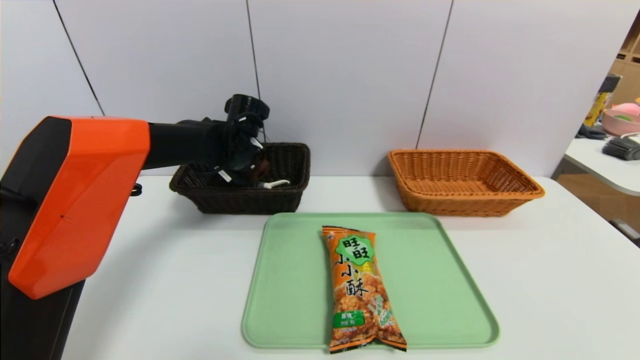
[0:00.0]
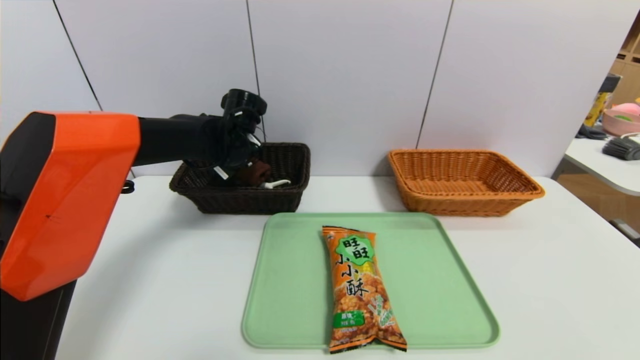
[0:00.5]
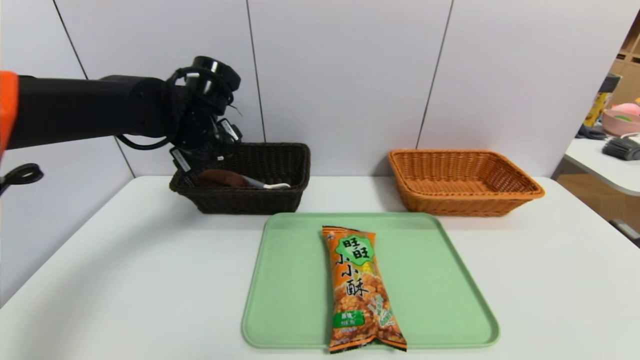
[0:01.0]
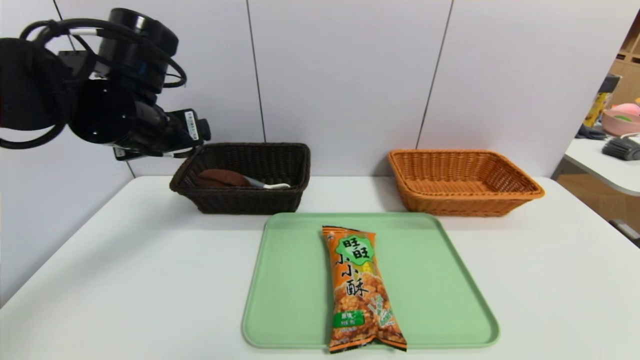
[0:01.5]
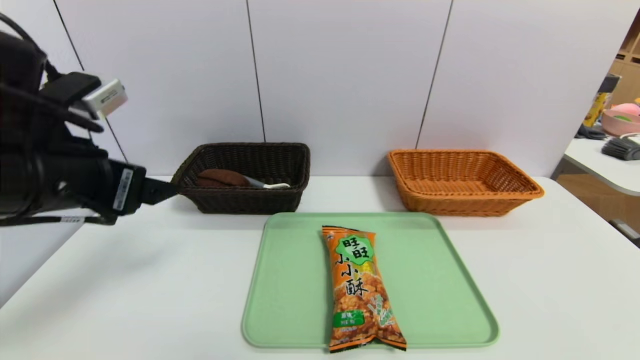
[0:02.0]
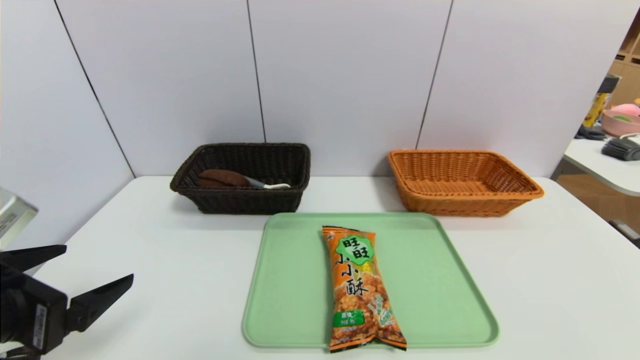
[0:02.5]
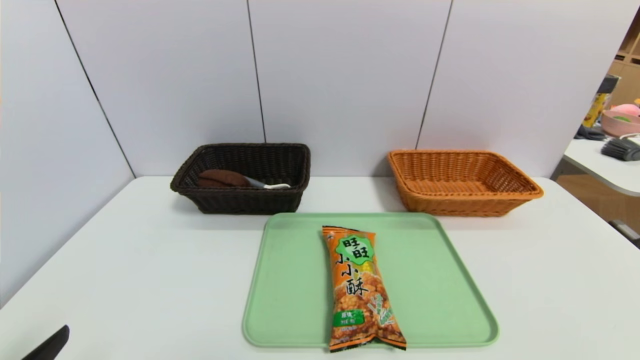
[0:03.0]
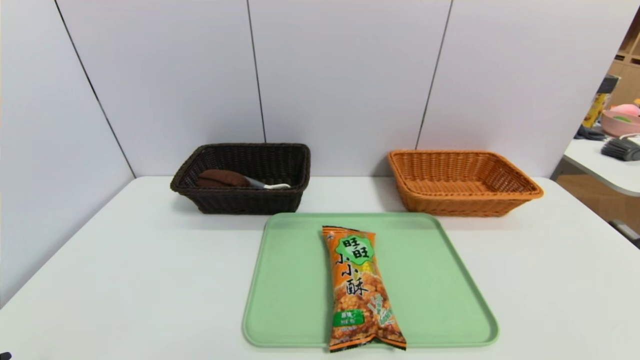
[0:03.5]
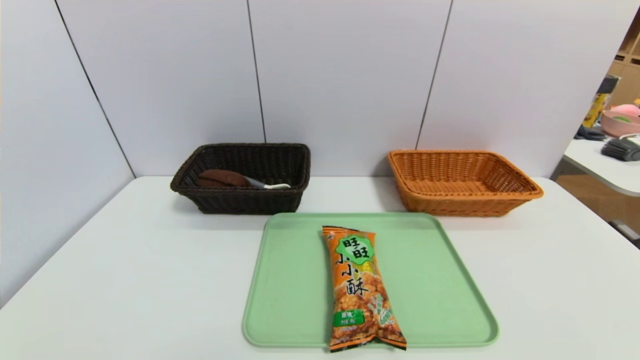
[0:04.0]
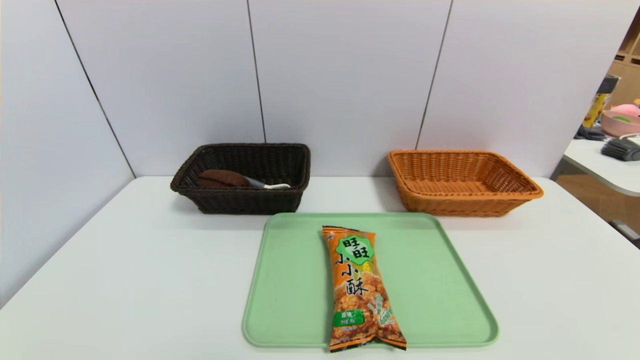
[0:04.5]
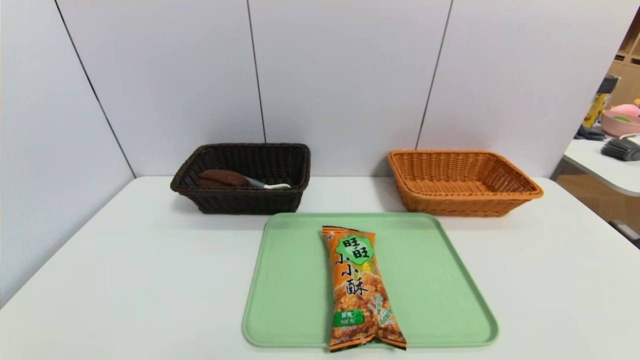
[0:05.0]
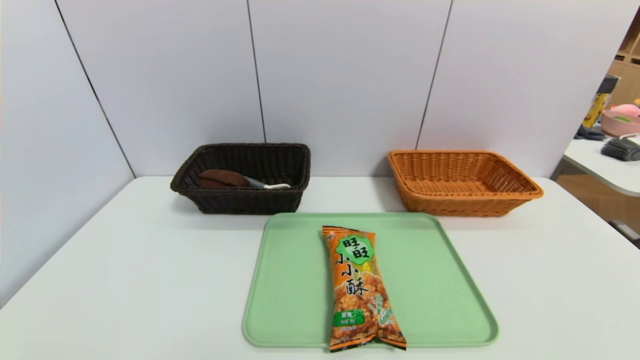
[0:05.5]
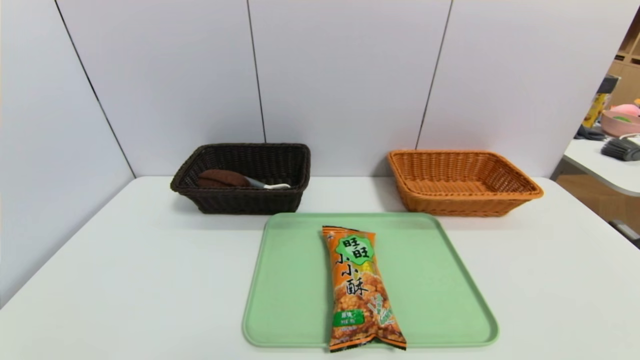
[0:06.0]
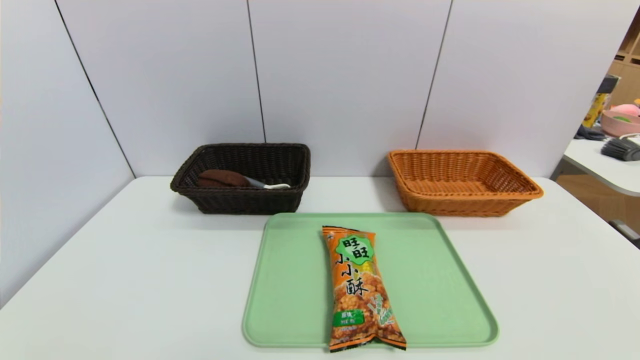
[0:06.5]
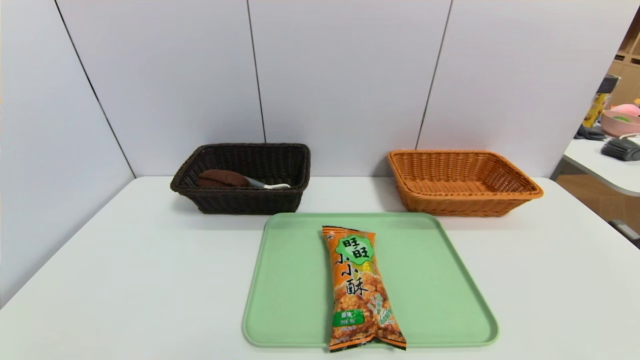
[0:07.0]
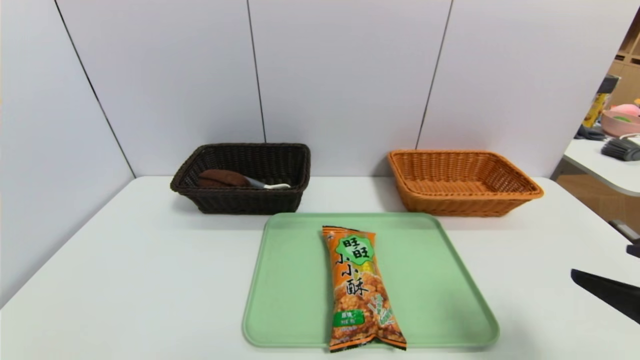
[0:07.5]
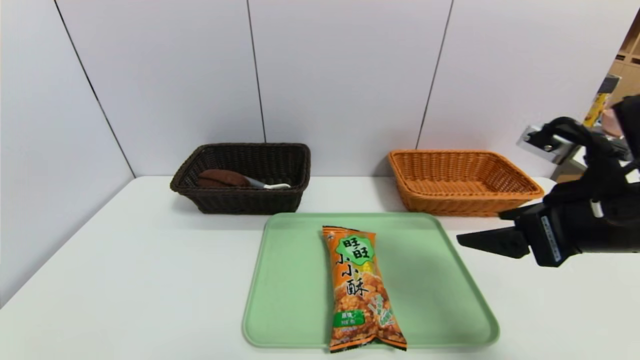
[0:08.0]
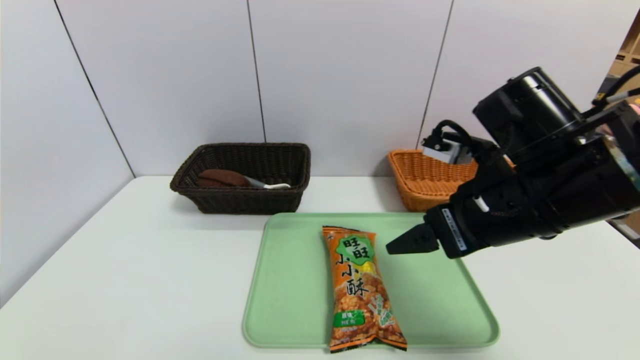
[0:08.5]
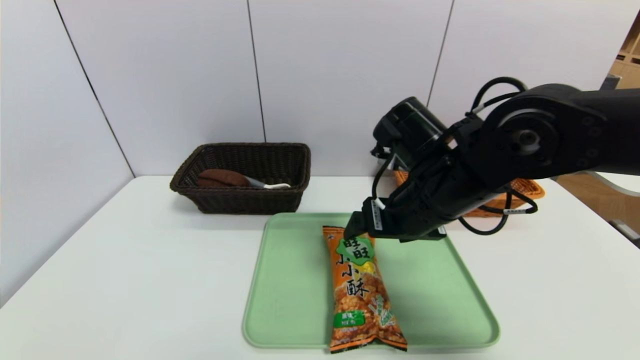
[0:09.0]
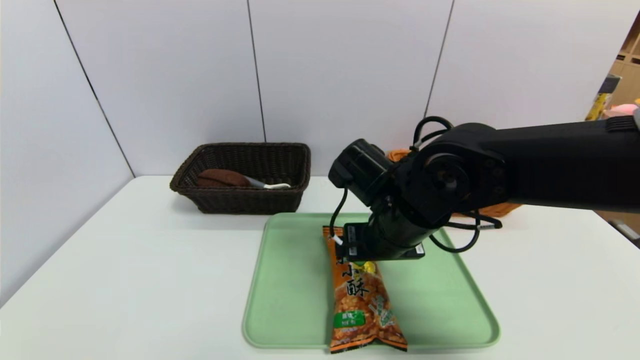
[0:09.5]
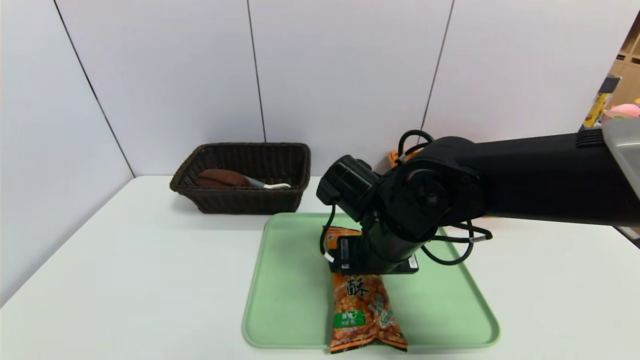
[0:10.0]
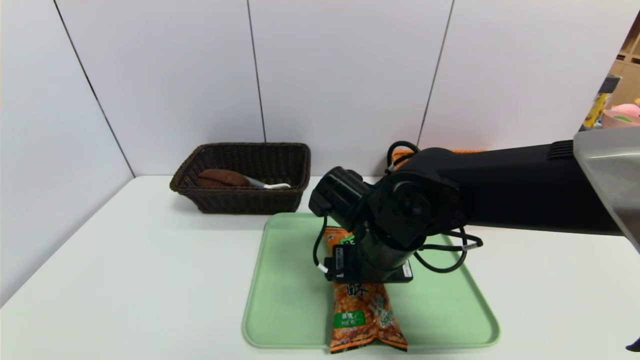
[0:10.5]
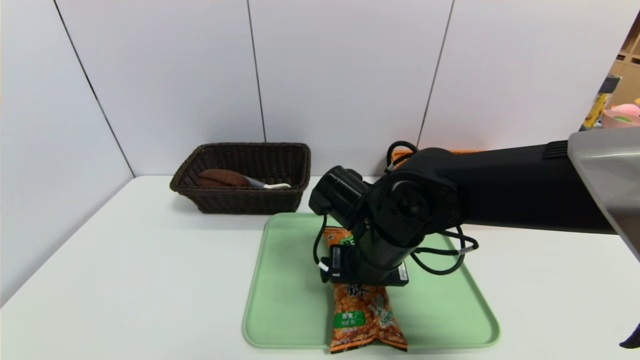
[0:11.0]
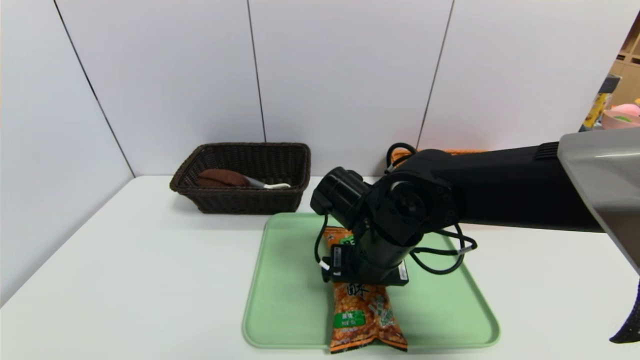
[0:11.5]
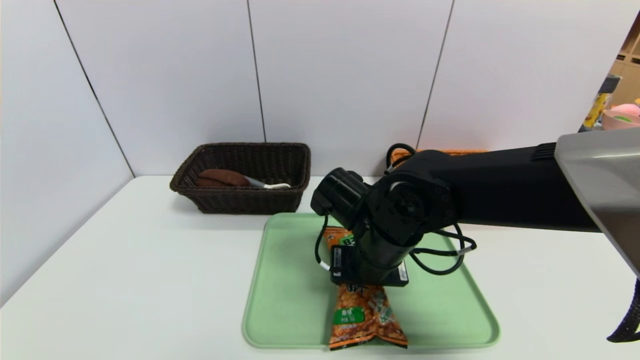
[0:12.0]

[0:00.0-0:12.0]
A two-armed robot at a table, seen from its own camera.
Task of the whole recording: place the food in the right basket with the right gripper, and place the non food items in the left basket with the left gripper.
0:00.0 to 0:02.0: The left gripper moves backward, some 25 cm, and opens.
0:02.0 to 0:04.0: The left gripper heads downward and backward, covering approximately 30 cm.
0:06.0 to 0:08.0: The right gripper travels forward and upward by some 30 cm.
0:08.0 to 0:10.0: The right gripper travels to the left and downward by some 20 cm.
0:10.0 to 0:12.0: The right gripper closes up.

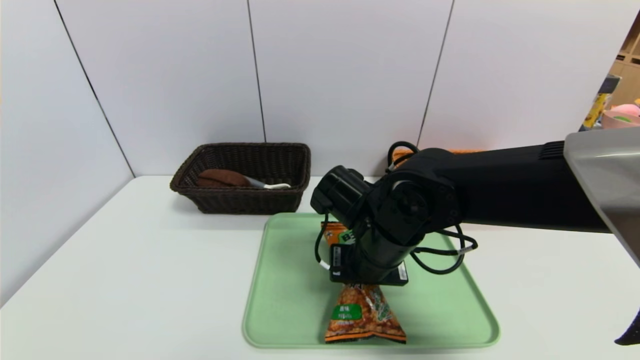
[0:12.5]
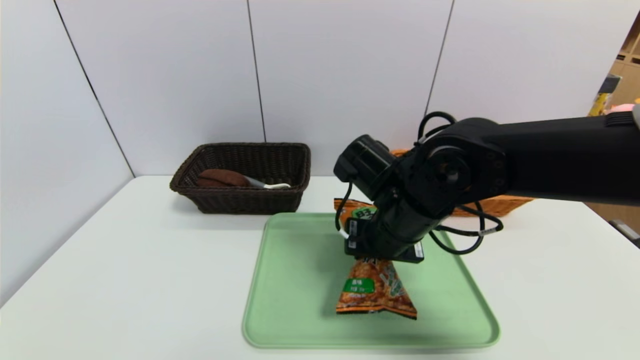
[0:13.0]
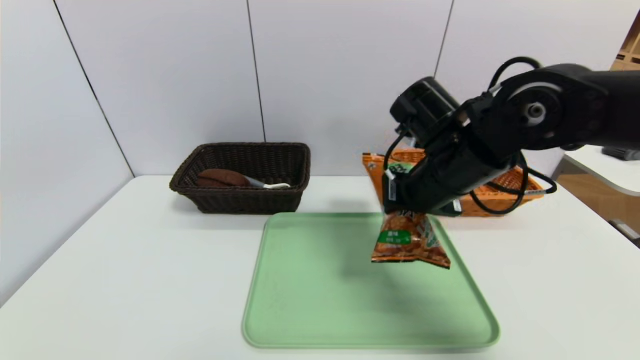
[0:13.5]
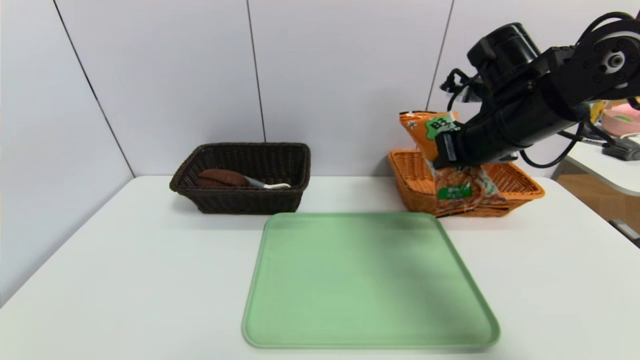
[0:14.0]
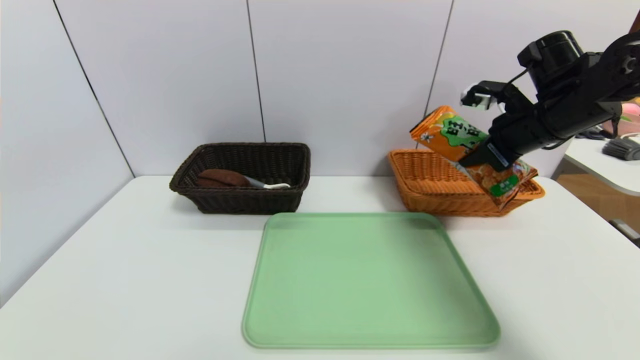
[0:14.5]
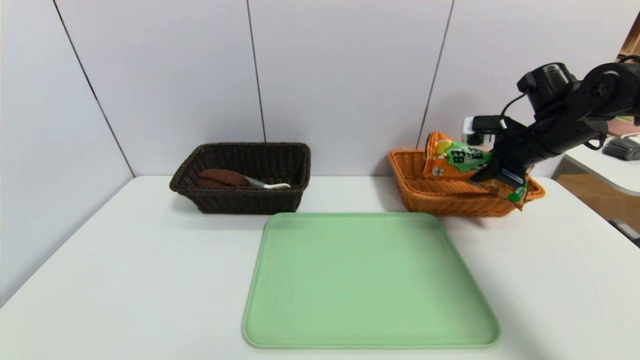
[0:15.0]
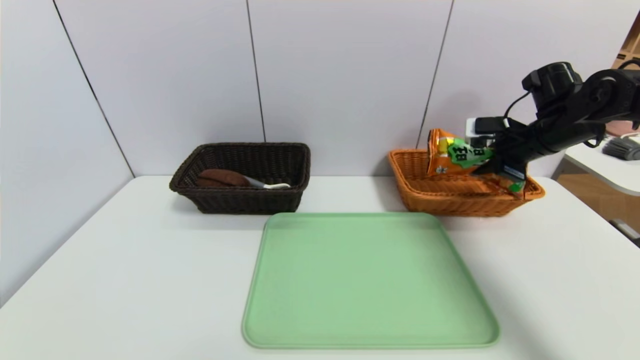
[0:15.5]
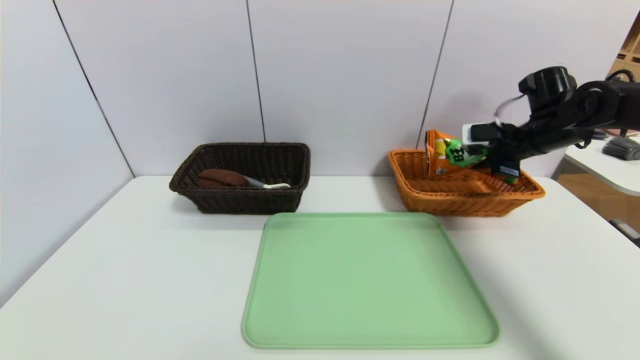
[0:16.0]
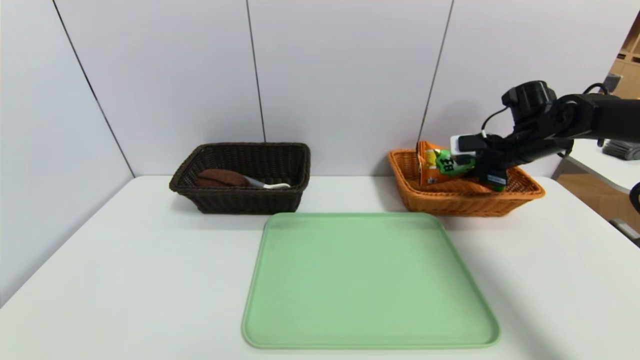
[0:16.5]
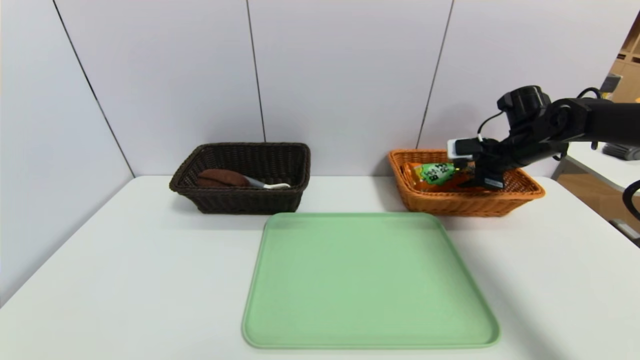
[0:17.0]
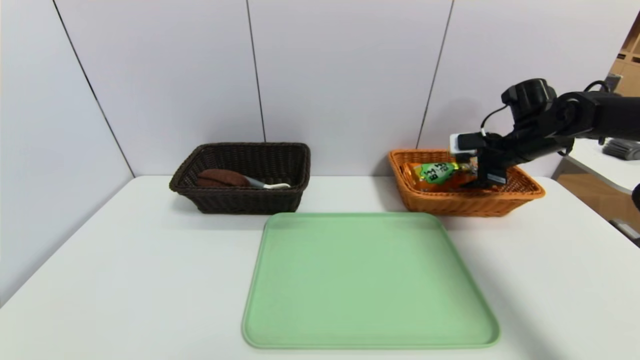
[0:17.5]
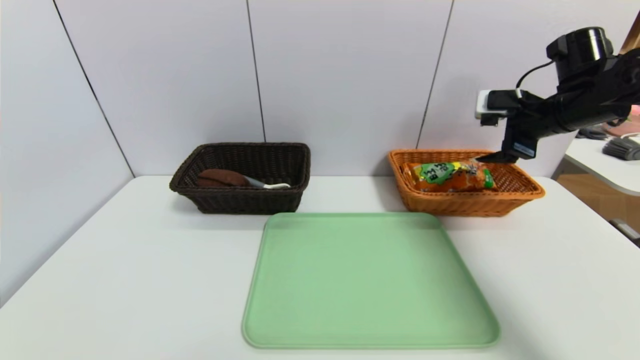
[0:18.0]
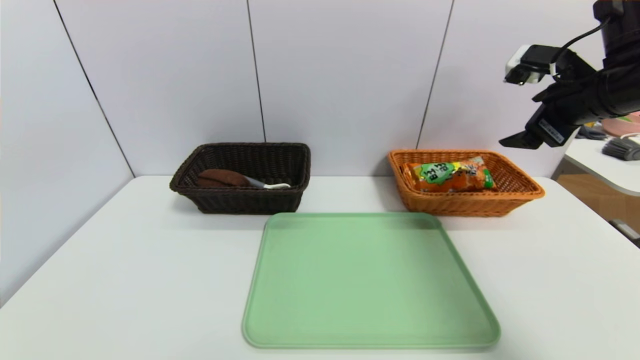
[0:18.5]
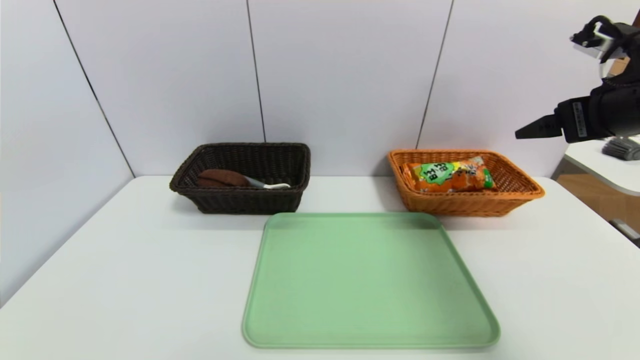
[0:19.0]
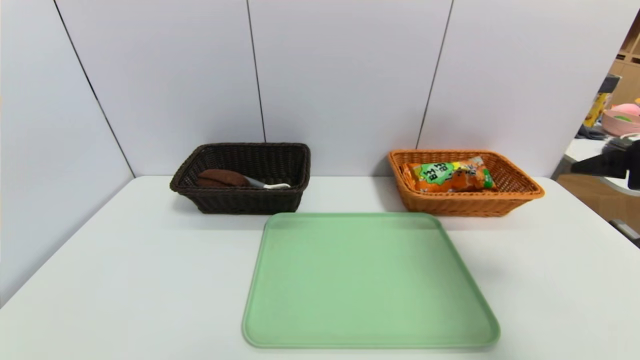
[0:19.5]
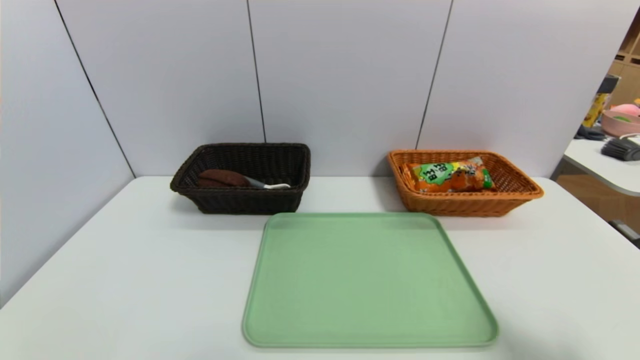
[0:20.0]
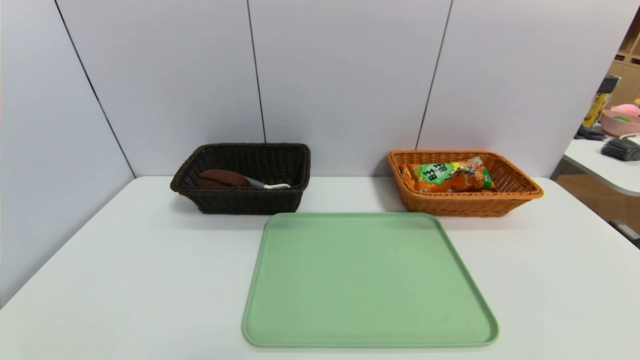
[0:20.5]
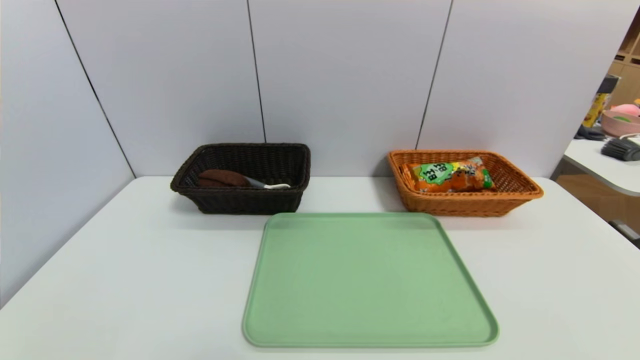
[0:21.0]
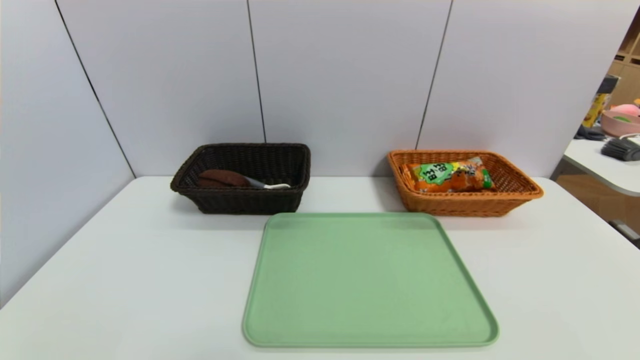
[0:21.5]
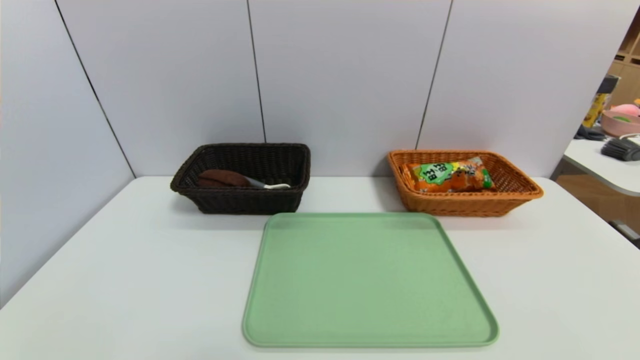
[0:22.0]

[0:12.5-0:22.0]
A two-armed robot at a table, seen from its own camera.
Task of the whole recording: place the food in the right basket with the right gripper, and place the non food items in the left basket with the left gripper.
Step, 0:12.5 to 0:18.0: Grasp the cookie and put it in the right basket.
0:12.5 to 0:14.5: The right gripper shifts some 25 cm to the right and upward.
0:14.5 to 0:16.5: The right gripper is displaced forward and downward by roughly 10 cm.
0:16.5 to 0:18.0: The right gripper shifts roughly 10 cm upward and backward, and opens its fingers.
0:18.0 to 0:20.0: The right gripper is displaced backward by some 35 cm.
0:20.0 to 0:22.0: The right gripper travels downward and backward by approximately 15 cm.
